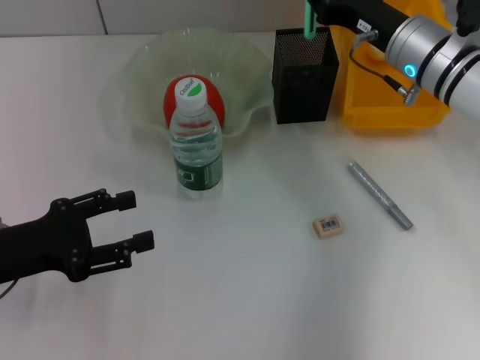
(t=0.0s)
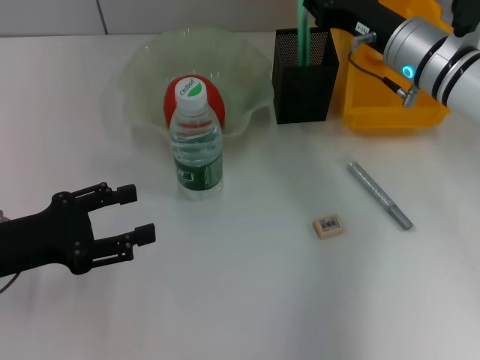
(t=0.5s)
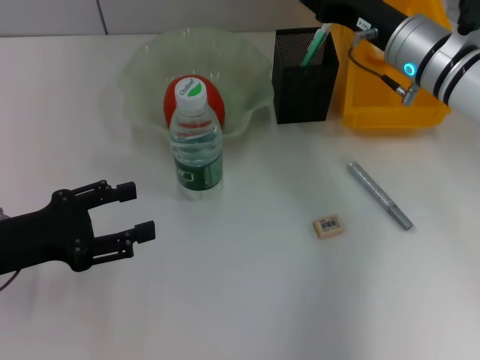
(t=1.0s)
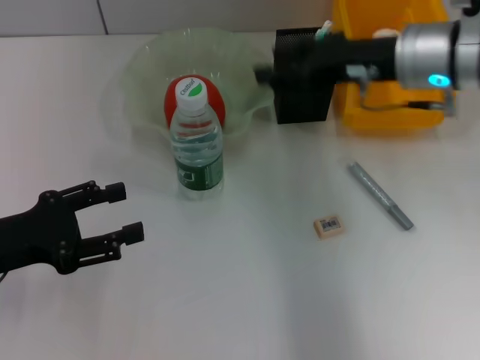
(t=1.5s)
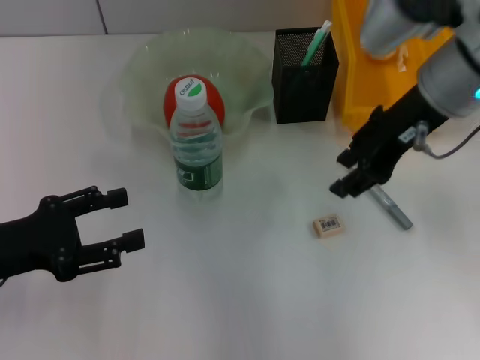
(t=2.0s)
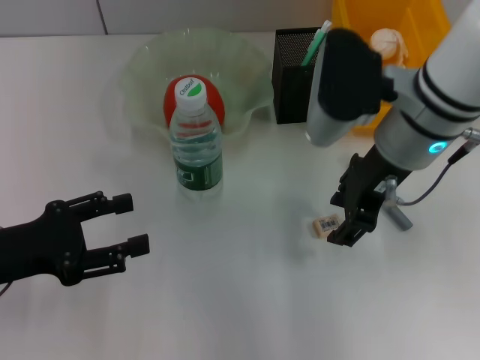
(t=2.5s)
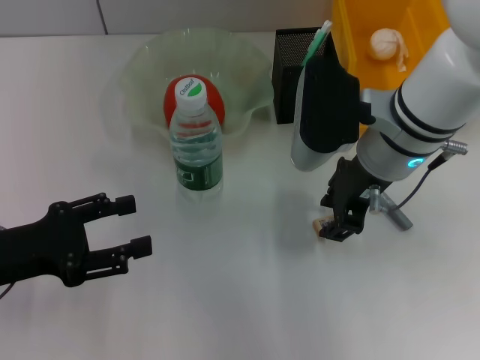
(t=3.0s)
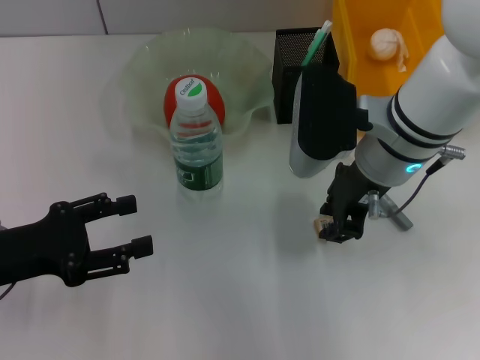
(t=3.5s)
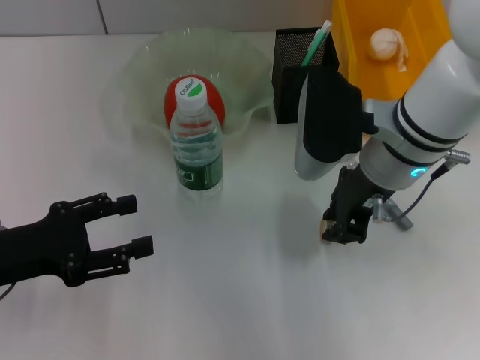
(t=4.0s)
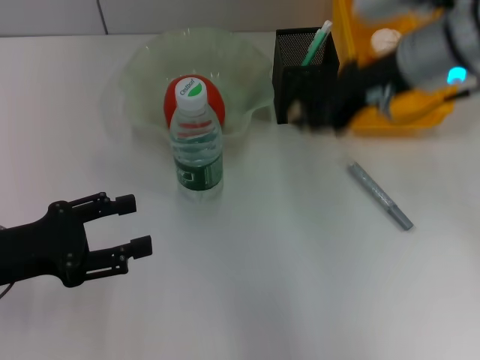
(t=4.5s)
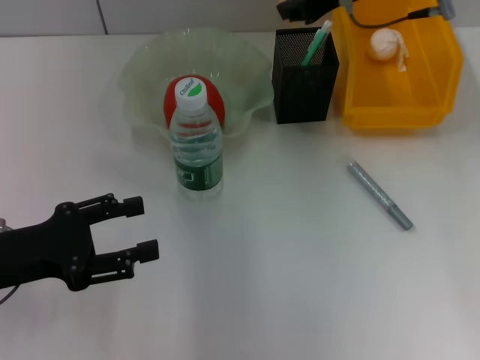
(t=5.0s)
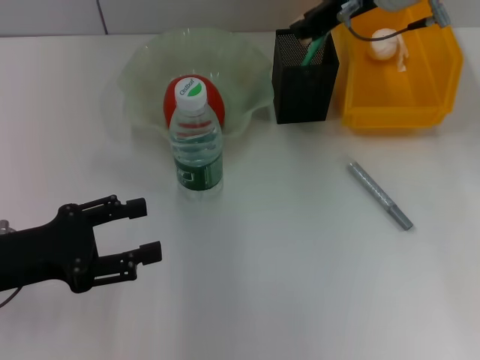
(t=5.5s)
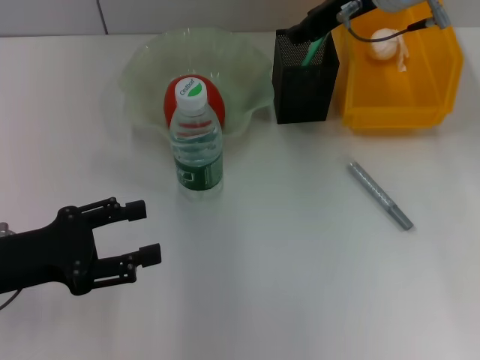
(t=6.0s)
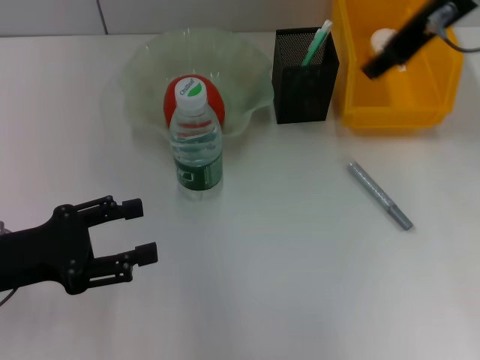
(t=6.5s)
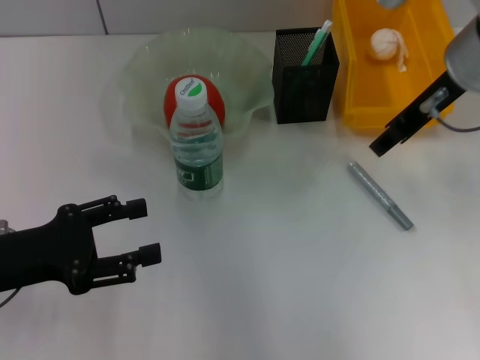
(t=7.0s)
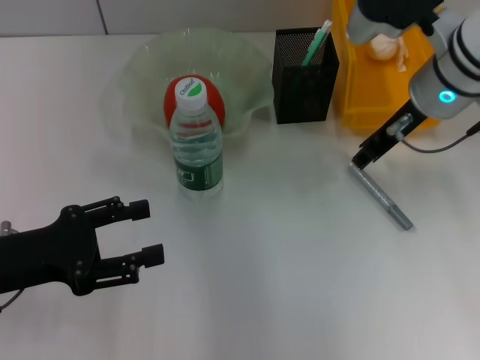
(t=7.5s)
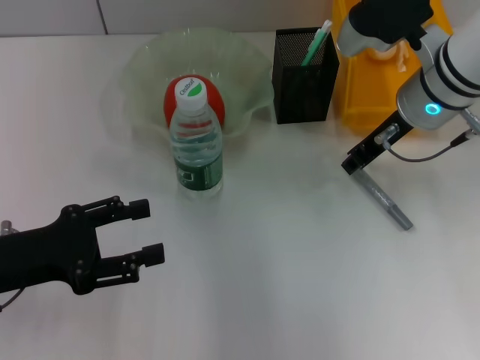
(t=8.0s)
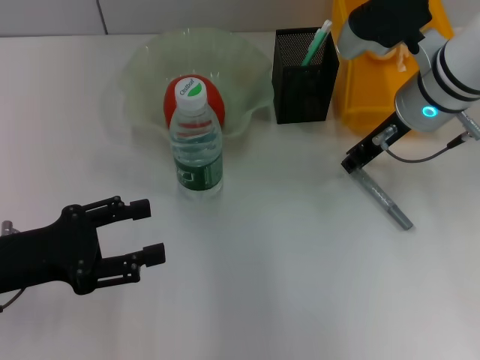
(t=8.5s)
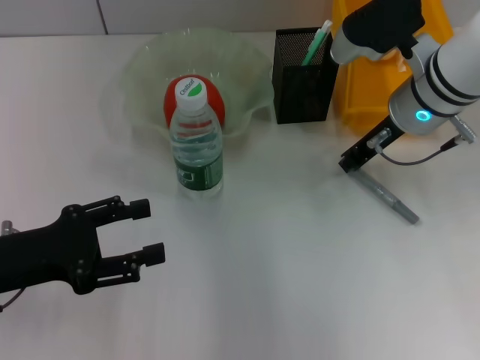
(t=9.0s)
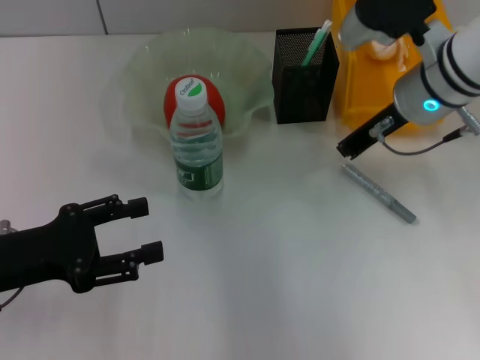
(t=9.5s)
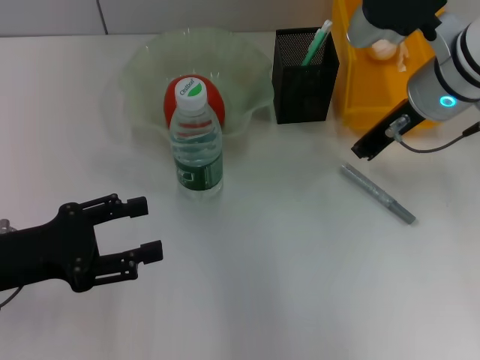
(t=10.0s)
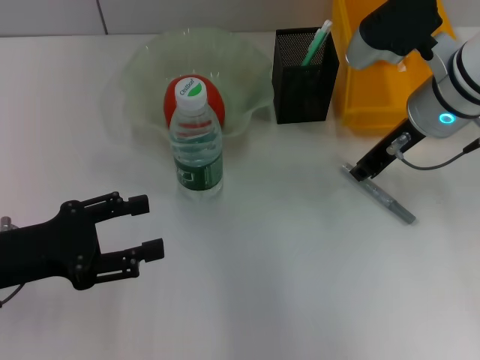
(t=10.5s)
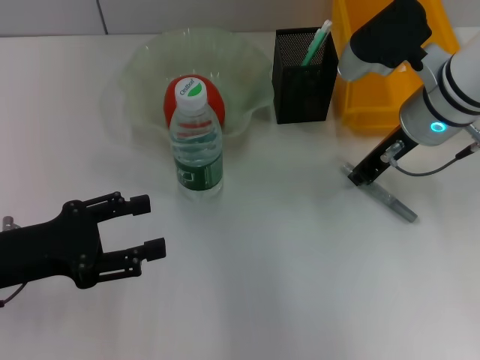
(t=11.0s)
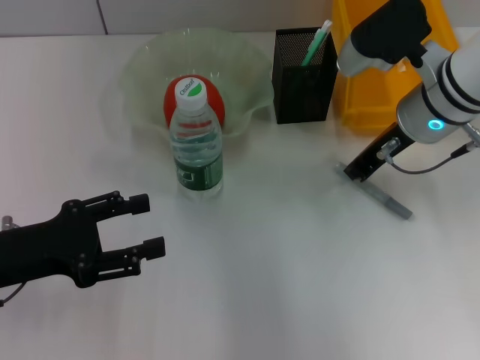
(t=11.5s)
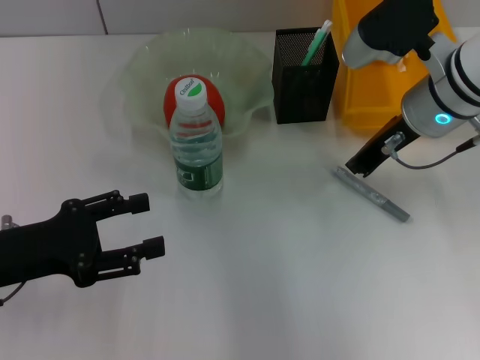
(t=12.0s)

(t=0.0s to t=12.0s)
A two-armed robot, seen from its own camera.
Step, t=1.0s - t=3.5s: Grab the eraser with the right hand.
Step, t=4.0s - t=5.5s: Put the eraser into the pen holder with the right hand.
t=0.0s - t=2.0s: The right gripper heads upward and backward, covering about 10 cm.
t=2.0s - t=4.0s: The right gripper goes some 5 cm downward.
t=4.0s - t=6.0s: The right gripper heads forward and upward, covering approximately 15 cm.
t=6.0s - t=8.0s: The right gripper travels downward and backward by roughly 10 cm.
t=8.0s - t=10.0s: The right gripper closes its fingers.
t=10.0s - t=12.0s: There are only small adjustments of the grippers.

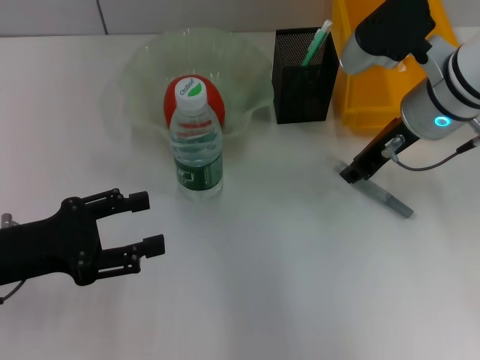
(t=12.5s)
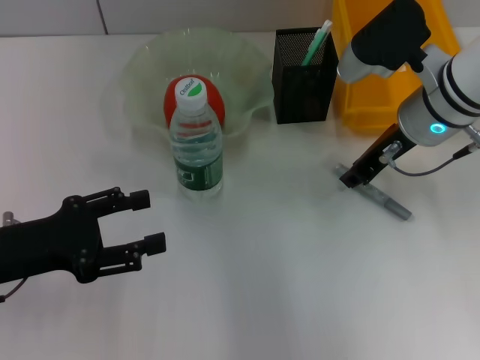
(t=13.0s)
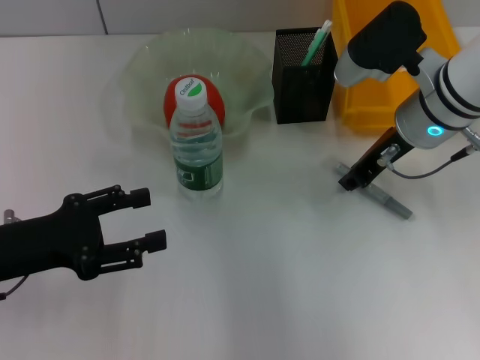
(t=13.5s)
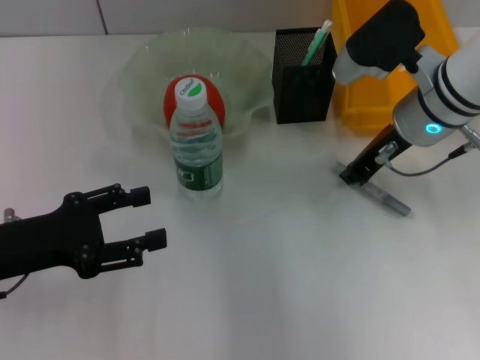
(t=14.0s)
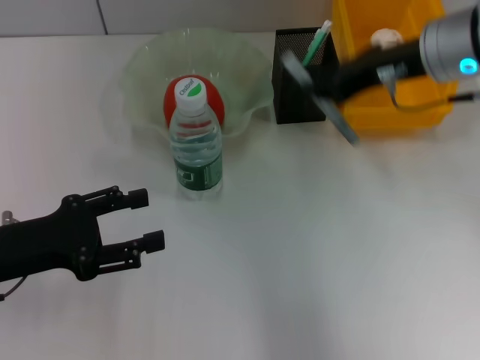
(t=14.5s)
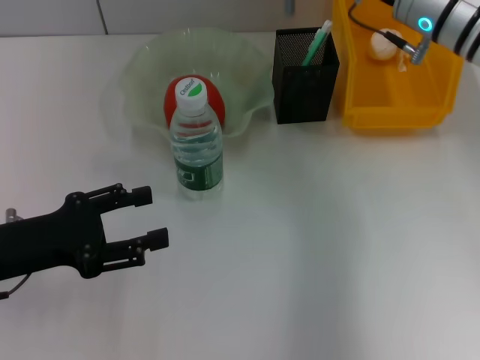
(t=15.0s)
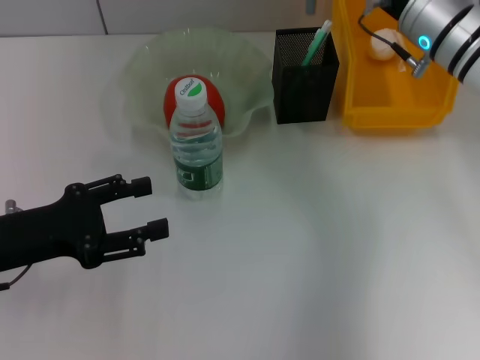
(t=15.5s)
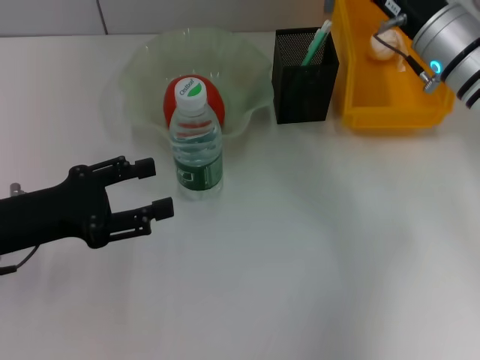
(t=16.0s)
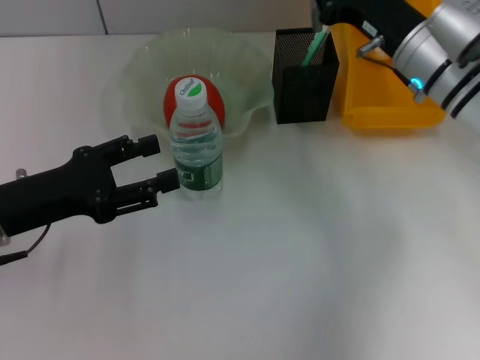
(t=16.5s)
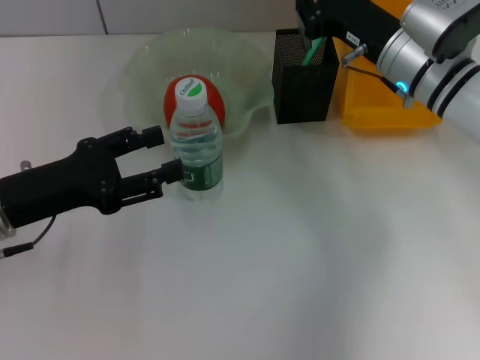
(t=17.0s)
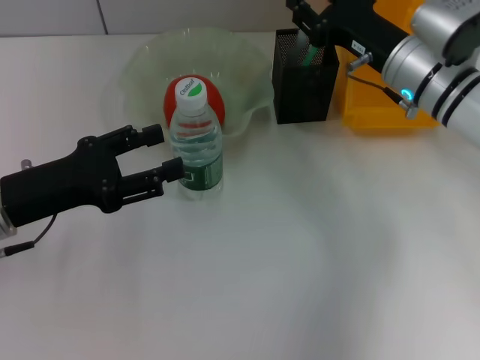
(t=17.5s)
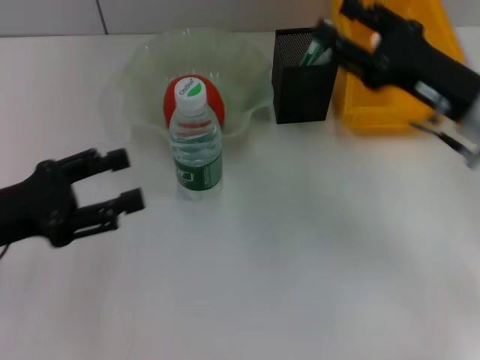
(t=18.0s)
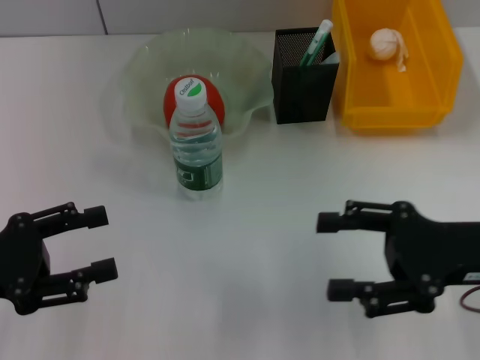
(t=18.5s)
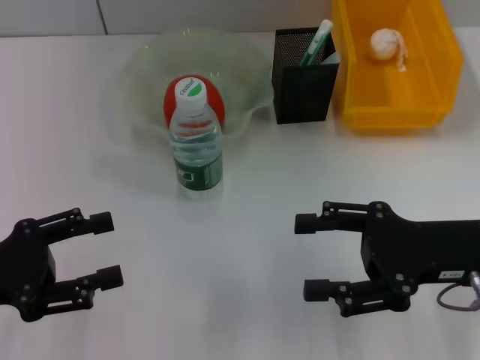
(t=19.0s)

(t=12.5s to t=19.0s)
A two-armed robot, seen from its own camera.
Step, t=14.0s - t=17.0s: Place the gray glue into the pen holder with the right hand.
t=12.5s - t=14.5s: The right gripper is displaced upward by about 5 cm.
t=14.5s - t=17.0s: The right gripper is displaced downward by some 10 cm.
t=17.0s - t=19.0s: The left gripper travels backward and to the left by some 10 cm; the right gripper shifts roughly 15 cm backward, and opens up.

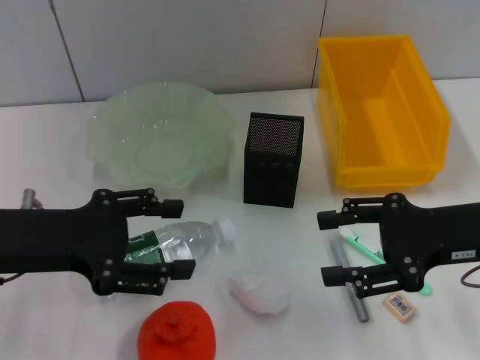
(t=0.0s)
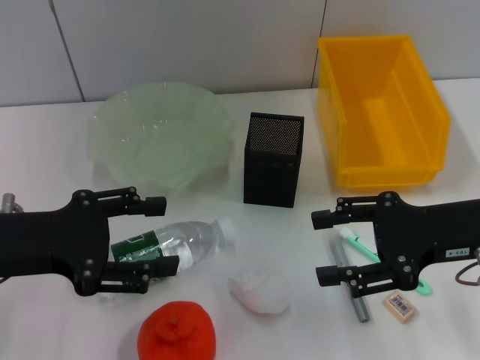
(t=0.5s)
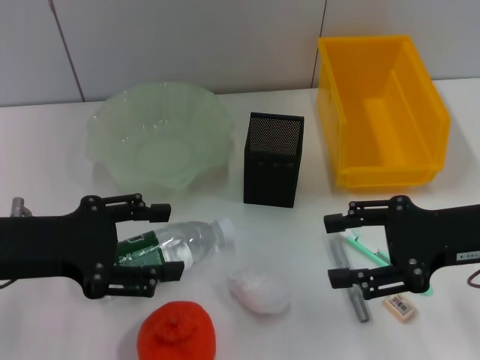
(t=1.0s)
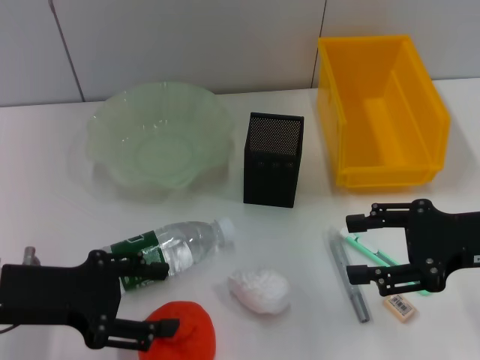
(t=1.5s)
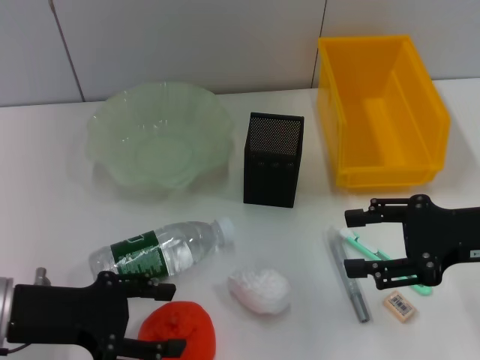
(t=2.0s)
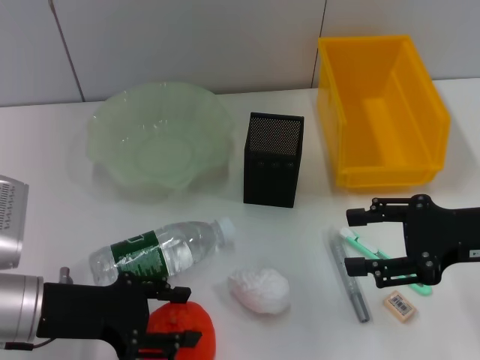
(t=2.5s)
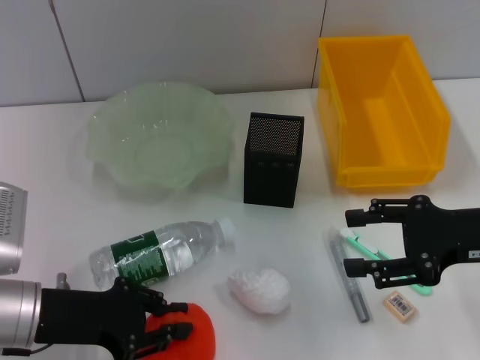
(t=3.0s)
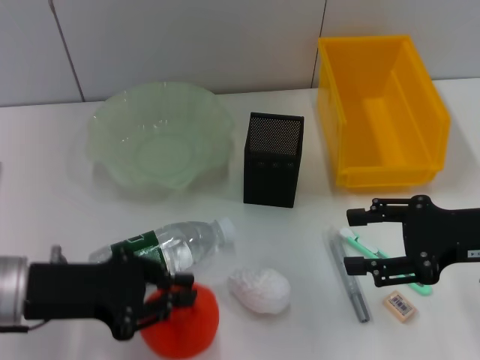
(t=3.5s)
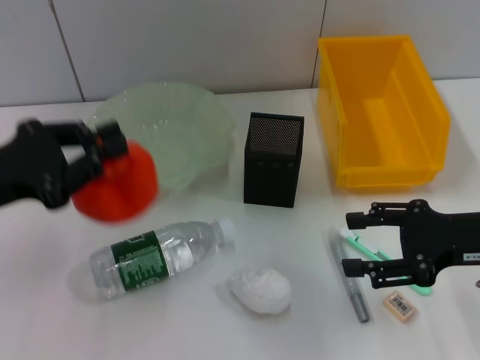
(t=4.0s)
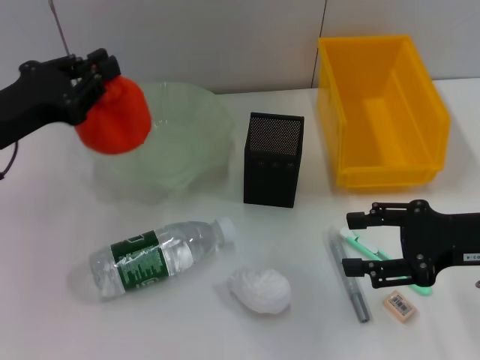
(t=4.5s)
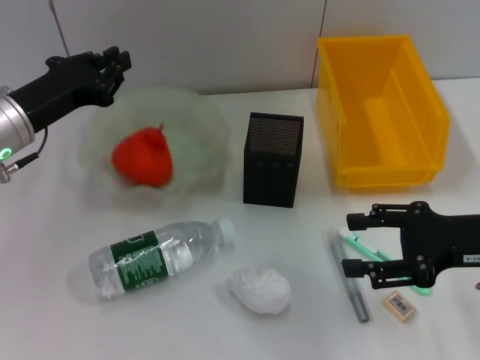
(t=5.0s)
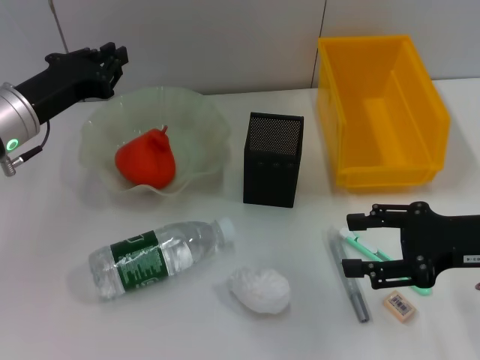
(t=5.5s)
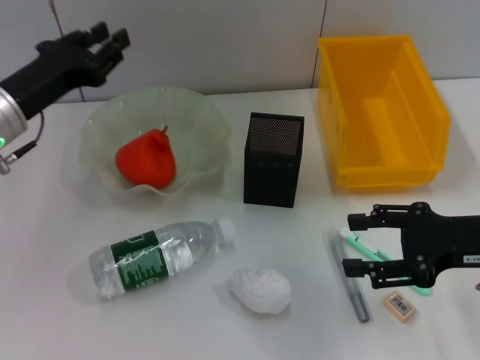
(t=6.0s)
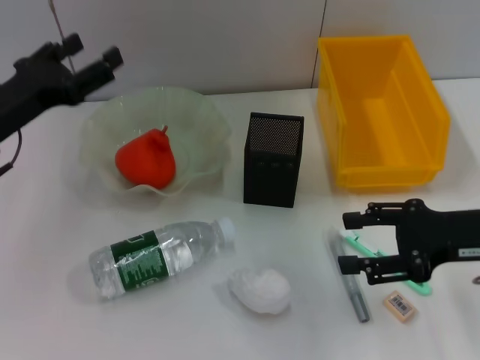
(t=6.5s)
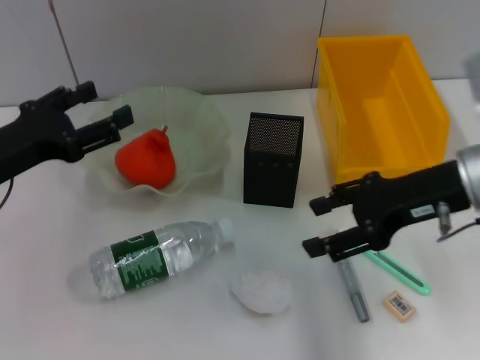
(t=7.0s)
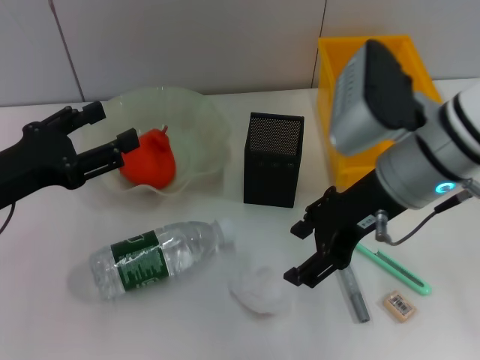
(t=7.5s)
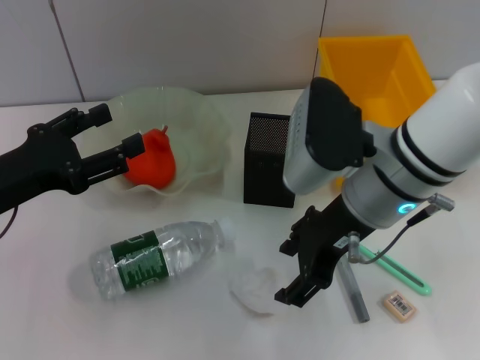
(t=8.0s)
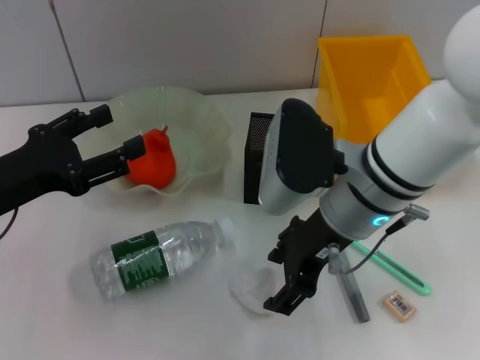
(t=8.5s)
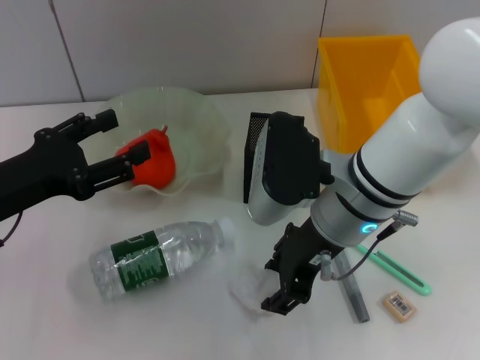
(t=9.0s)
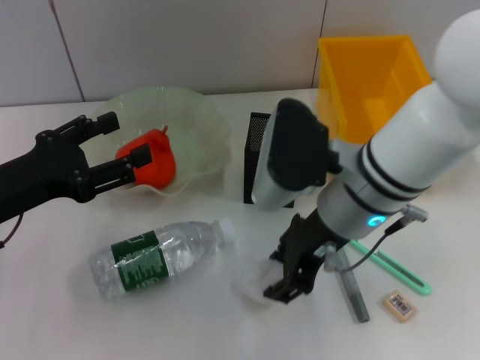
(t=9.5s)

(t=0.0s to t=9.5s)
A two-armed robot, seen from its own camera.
Step, t=0.0s - t=3.0s: Grab the orange with the left hand.
Step, t=3.5s - t=5.0s: Place the orange into the fruit bowl with the left hand.
Step, t=5.5s - t=9.0s: Grab the paper ball with the right hand.
t=0.0s - t=2.0s: The left gripper heads downward, covering approximately 5 cm.
t=2.0s - t=4.0s: The left gripper heads upward, covering roughly 5 cm, and closes.
t=4.0s - t=5.5s: The left gripper goes approximately 10 cm forward.
t=5.5s - t=7.5s: The left gripper travels backward by roughly 10 cm, and opens its fingers. Meanwhile the right gripper travels to the left, upward and forward by about 15 cm.
t=7.5s - t=9.5s: The right gripper moves to the left, about 5 cm.
